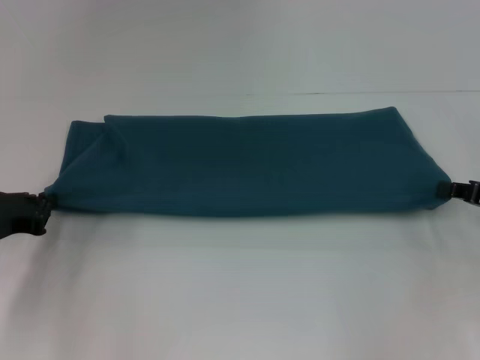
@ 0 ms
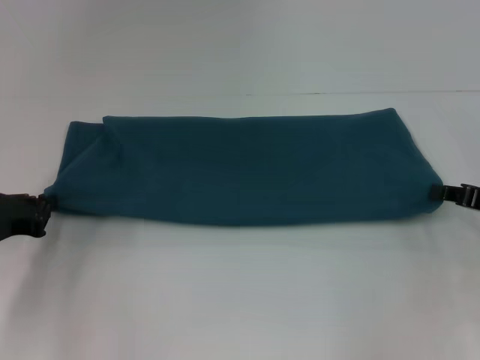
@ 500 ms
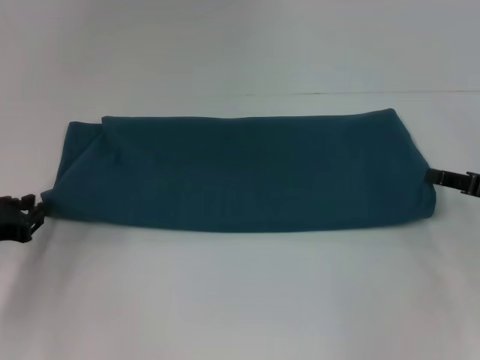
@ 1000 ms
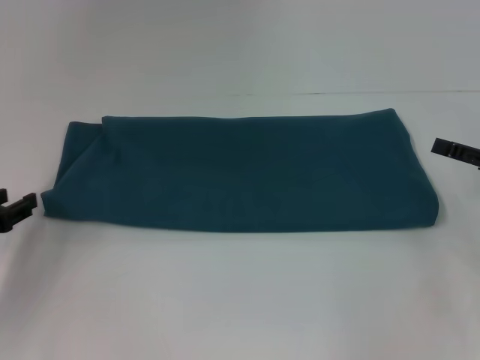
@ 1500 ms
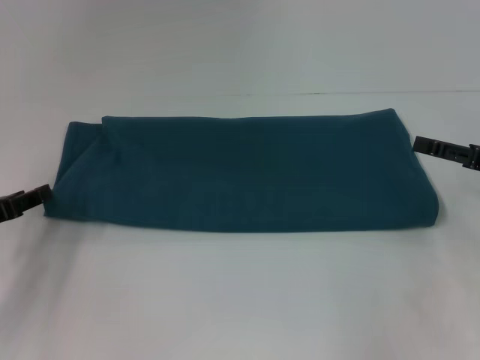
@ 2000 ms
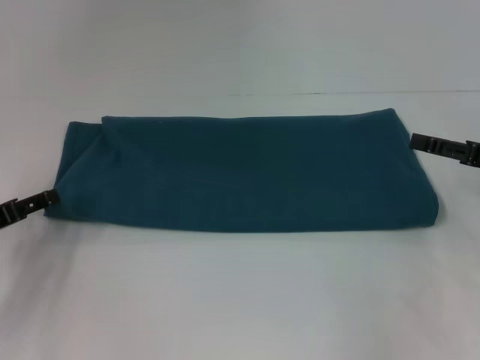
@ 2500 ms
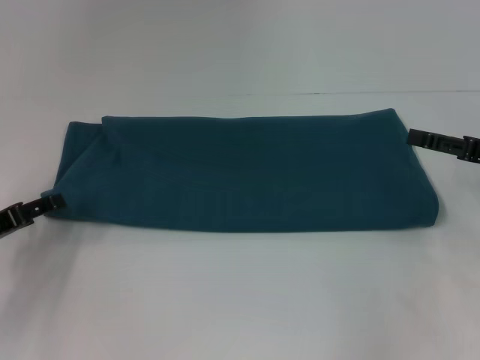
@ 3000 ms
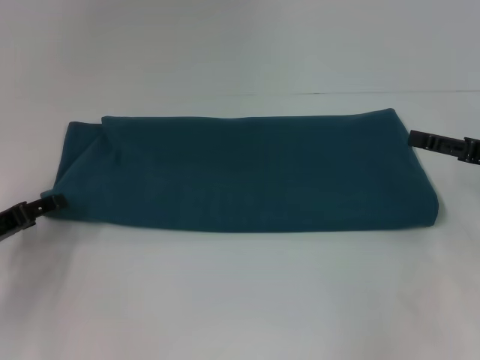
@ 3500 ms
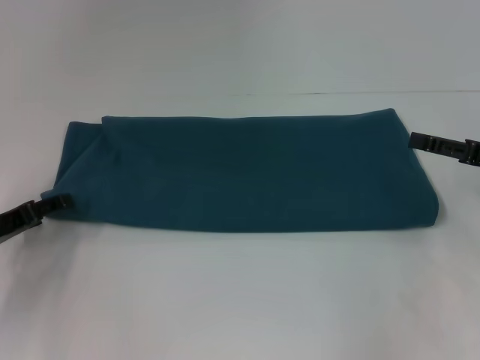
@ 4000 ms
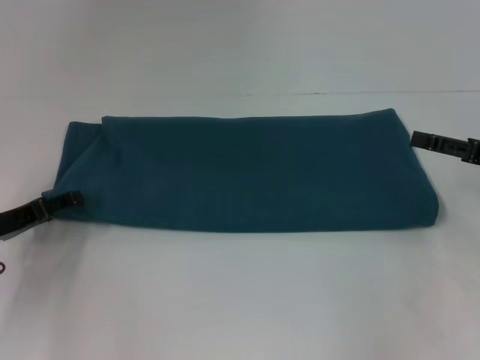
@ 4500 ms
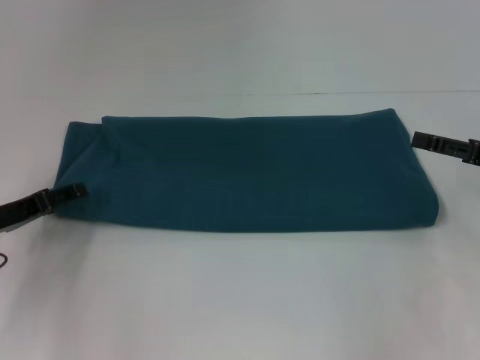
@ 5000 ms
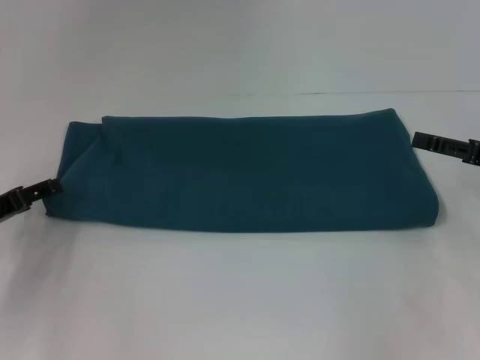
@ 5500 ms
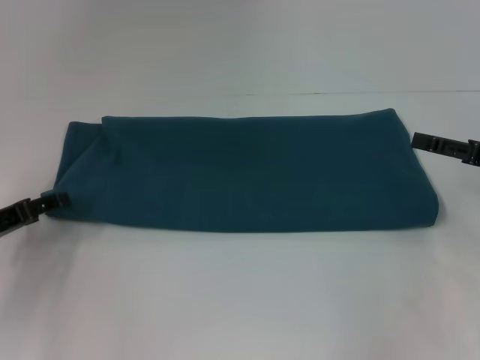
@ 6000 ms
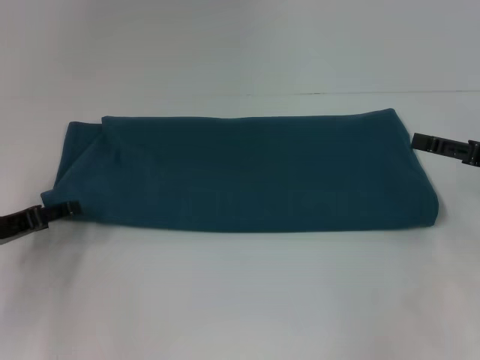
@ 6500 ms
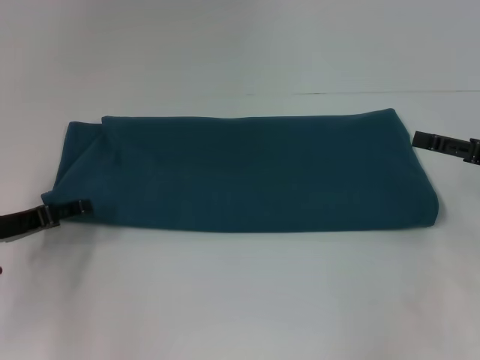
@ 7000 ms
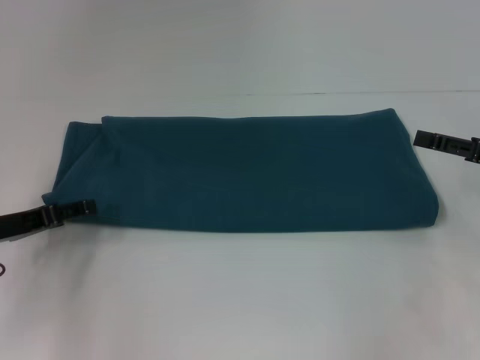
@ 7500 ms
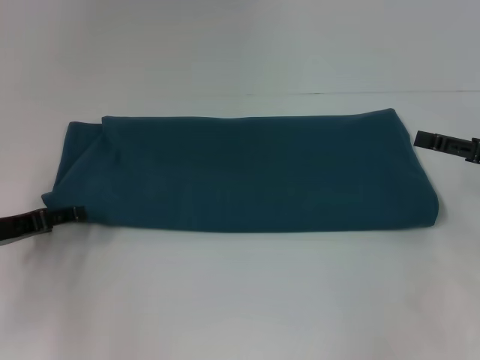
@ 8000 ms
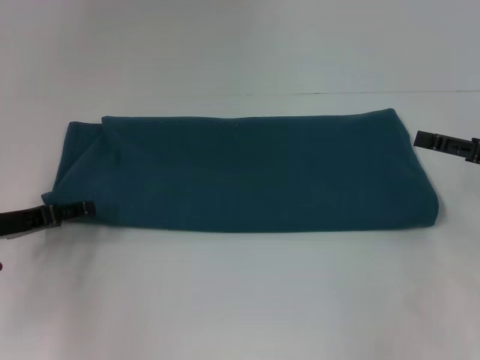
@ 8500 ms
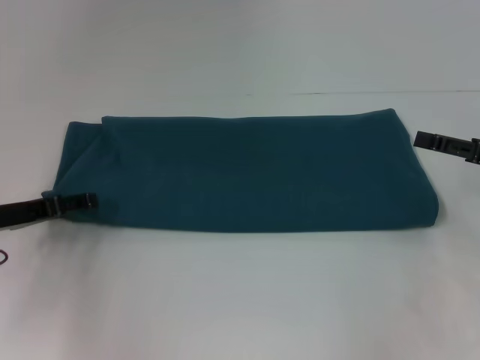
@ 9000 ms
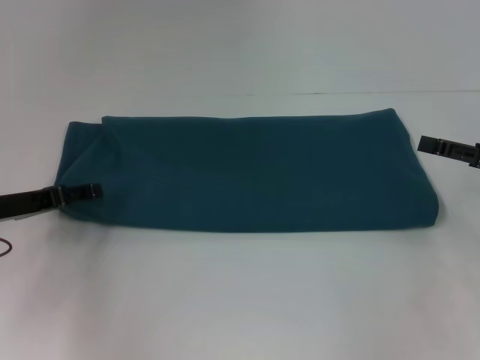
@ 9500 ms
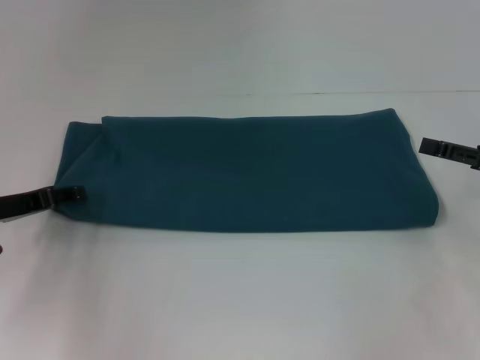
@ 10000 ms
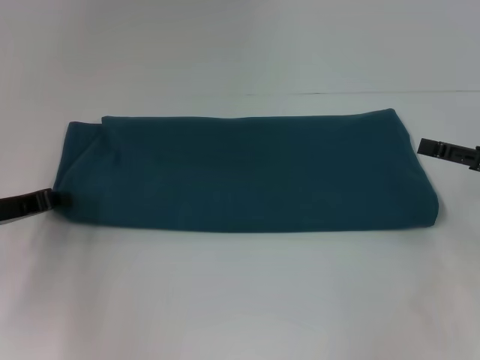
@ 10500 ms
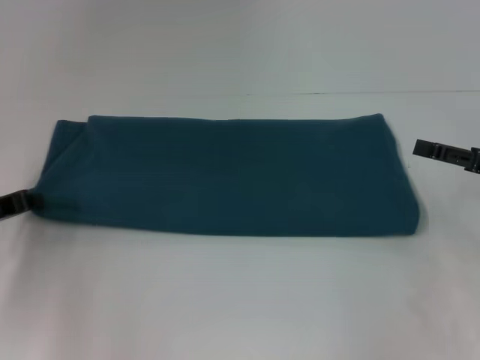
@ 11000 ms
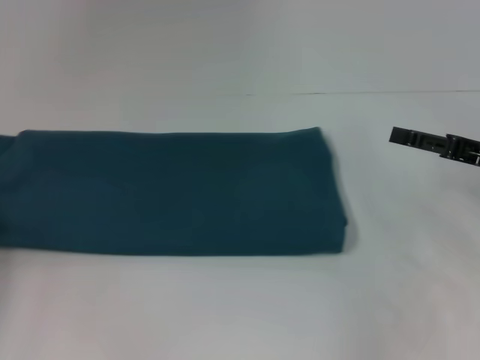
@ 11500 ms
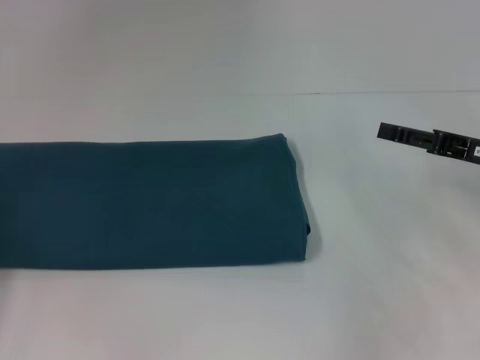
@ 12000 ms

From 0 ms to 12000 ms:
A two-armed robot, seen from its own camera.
From 0 ms to 2000 ms: The left gripper opens its fingers; the right gripper opens its fingers.
From 2000 ms to 4000 ms: There are only small adjustments of the grippers.
From 6000 ms to 10000 ms: The grippers make only small movements.
From 10000 ms to 12000 ms: The left gripper goes roughly 10 cm to the left and backward, and closes.

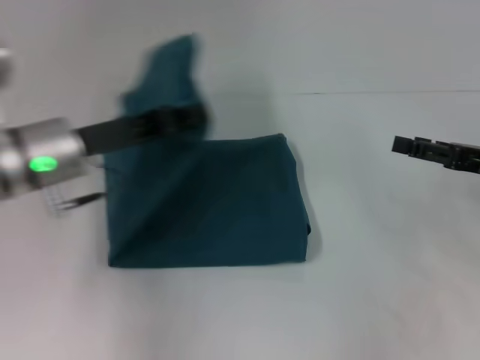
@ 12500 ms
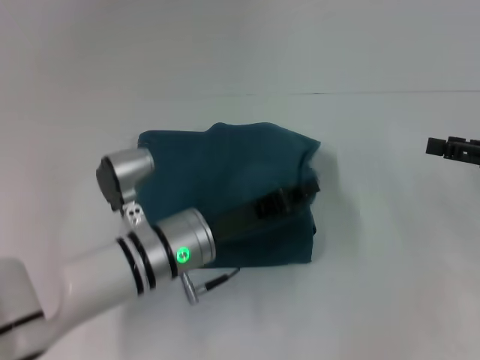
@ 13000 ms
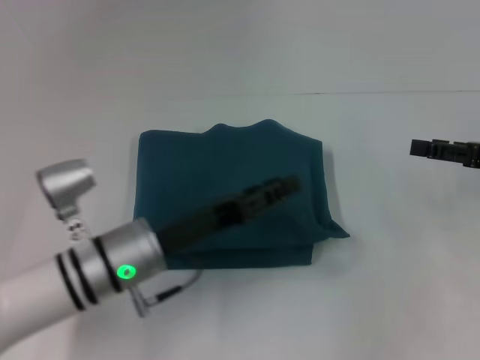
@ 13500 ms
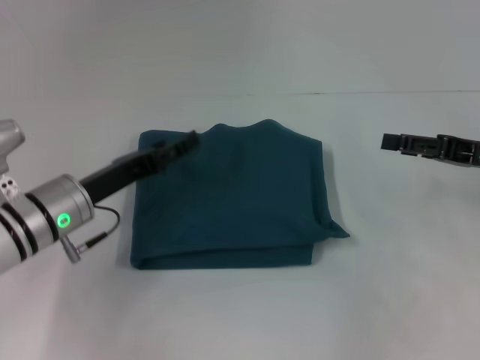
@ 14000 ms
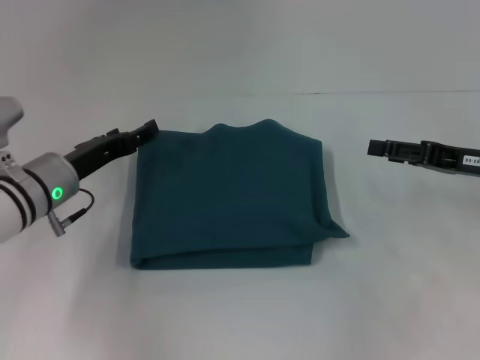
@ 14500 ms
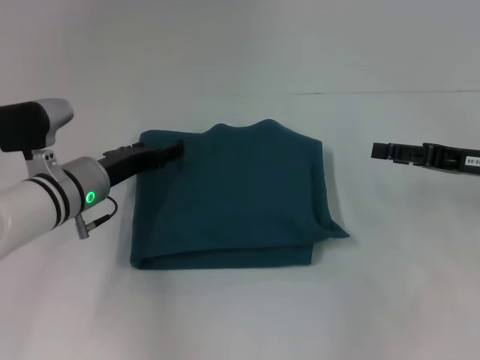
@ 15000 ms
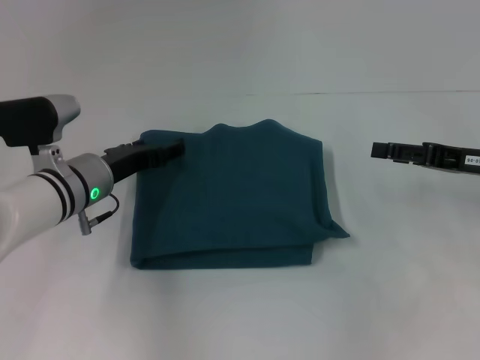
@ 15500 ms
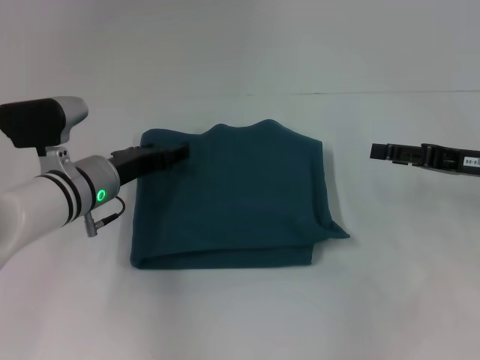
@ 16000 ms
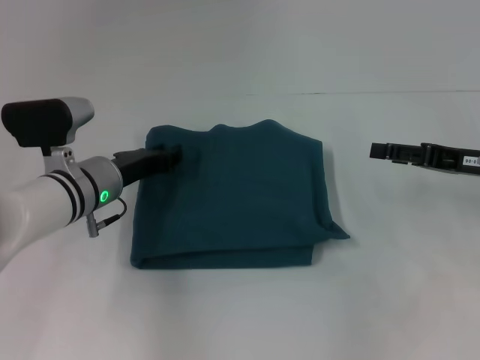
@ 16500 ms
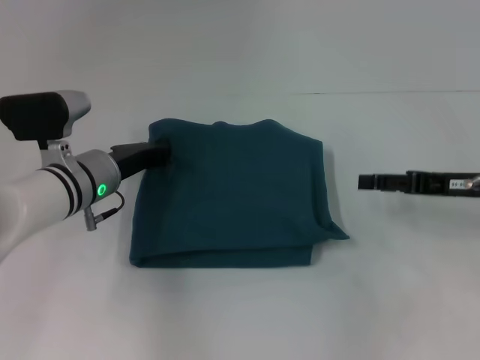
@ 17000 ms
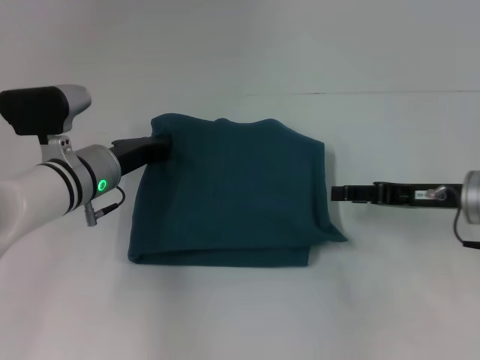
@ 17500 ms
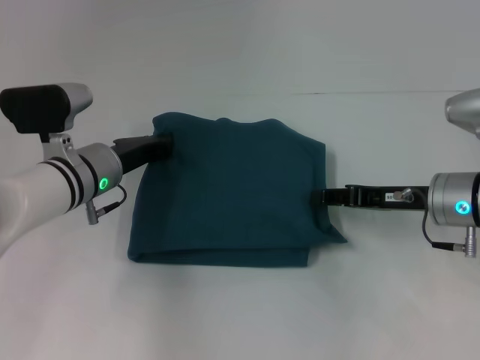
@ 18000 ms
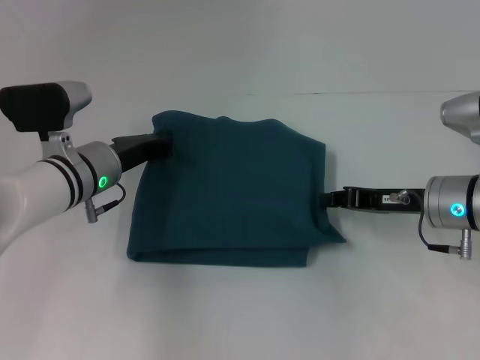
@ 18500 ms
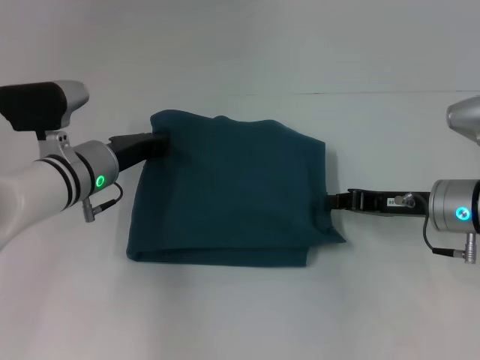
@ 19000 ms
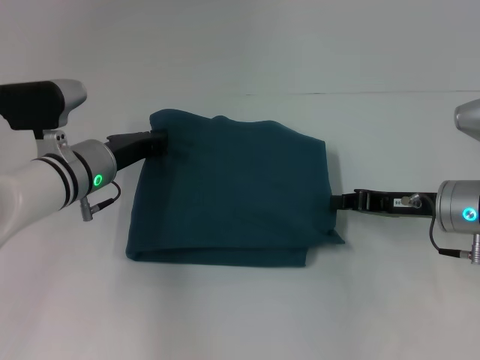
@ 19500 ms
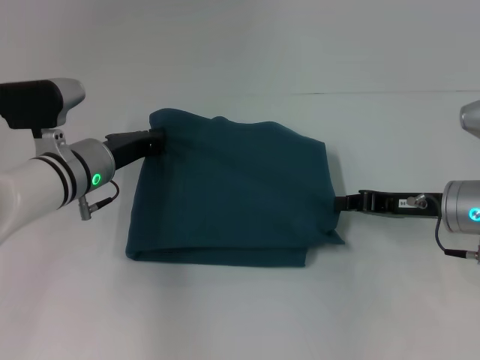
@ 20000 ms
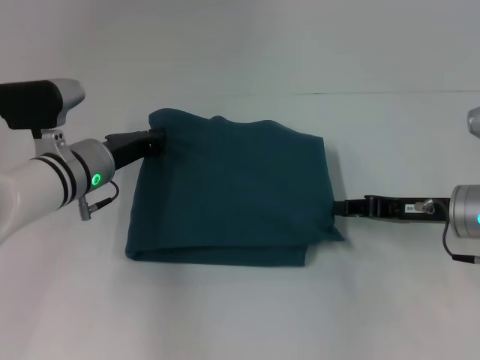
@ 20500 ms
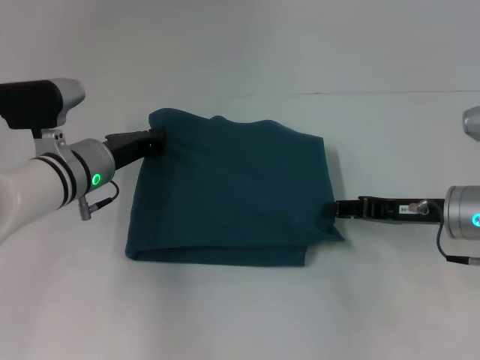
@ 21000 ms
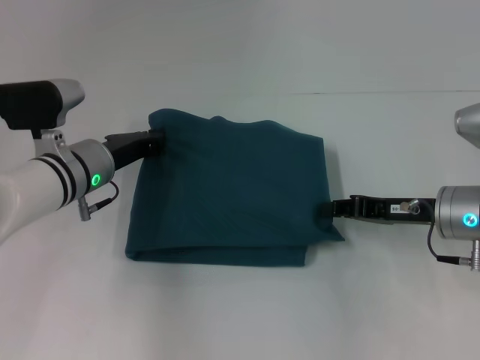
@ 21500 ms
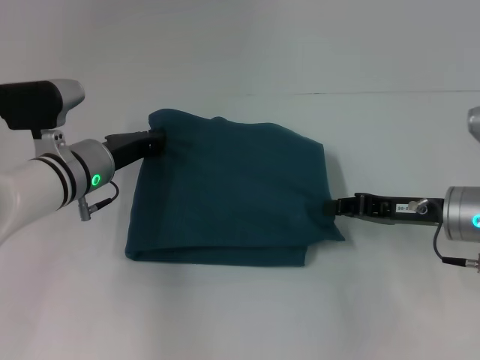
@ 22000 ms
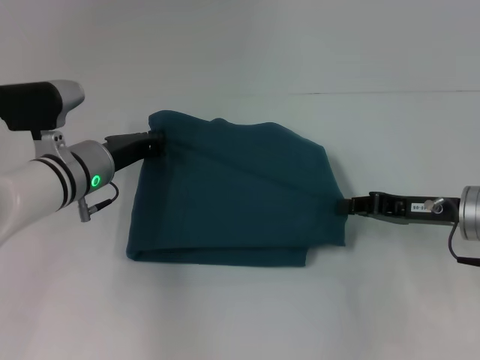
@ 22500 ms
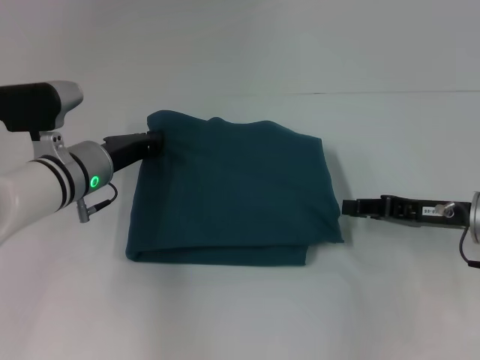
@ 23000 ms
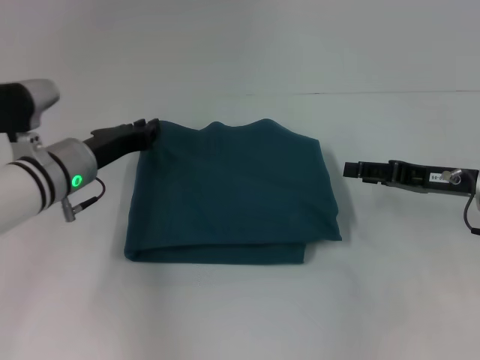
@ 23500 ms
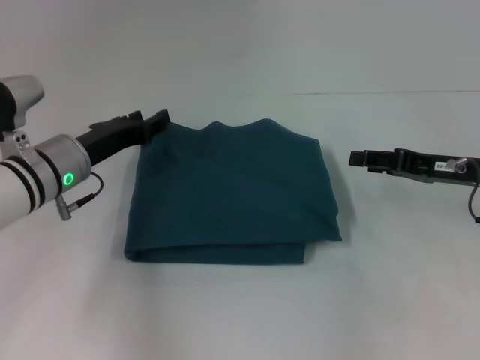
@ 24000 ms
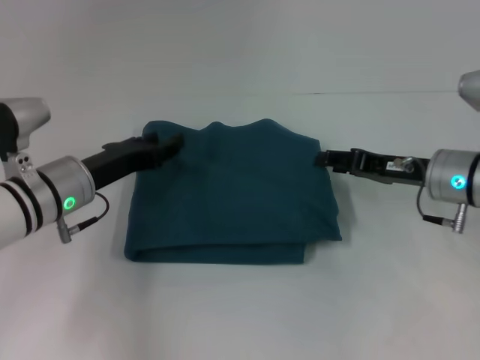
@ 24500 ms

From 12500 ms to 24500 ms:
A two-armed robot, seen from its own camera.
From 12500 ms to 14500 ms: The left gripper heads downward, covering some 10 cm, reaches some 10 cm to the right, then returns, and opens up.
From 14500 ms to 16500 ms: The left gripper closes.
From 16500 ms to 18500 ms: The right gripper goes approximately 5 cm to the left, and closes its fingers. Meanwhile the left gripper closes up.
From 18500 ms to 22500 ms: There are only small adjustments of the grippers.
From 22500 ms to 24500 ms: The right gripper opens up. The left gripper opens.

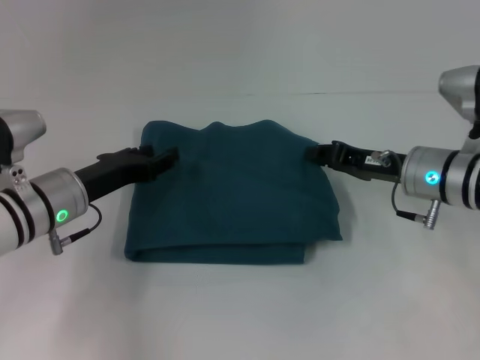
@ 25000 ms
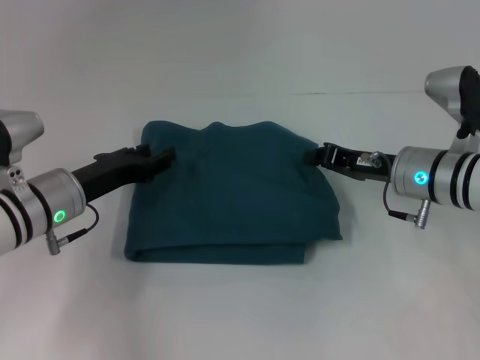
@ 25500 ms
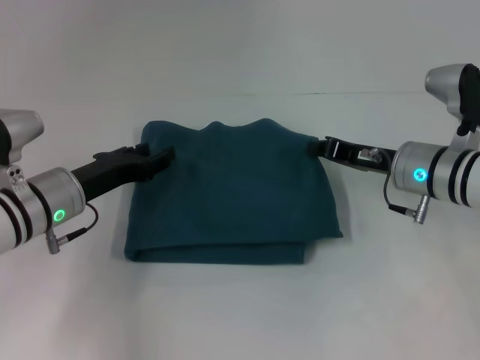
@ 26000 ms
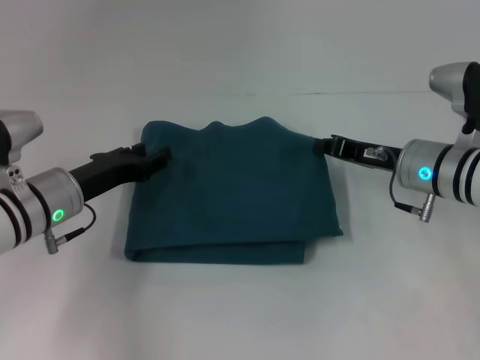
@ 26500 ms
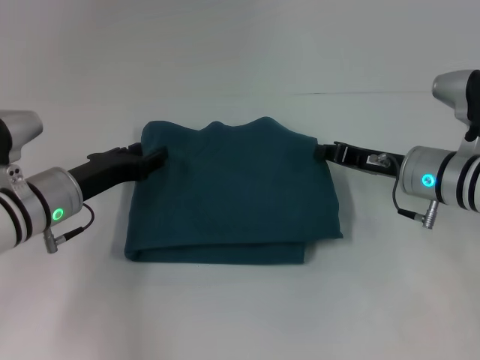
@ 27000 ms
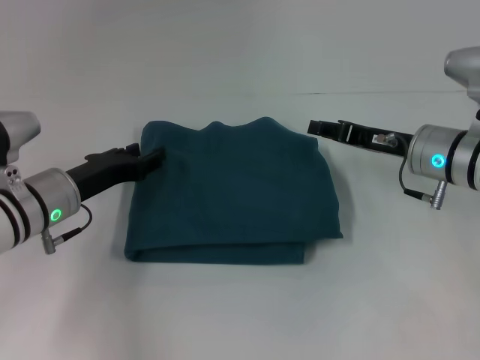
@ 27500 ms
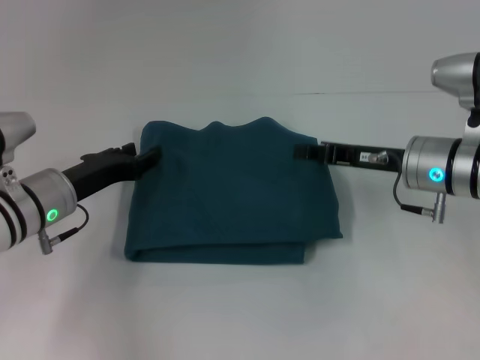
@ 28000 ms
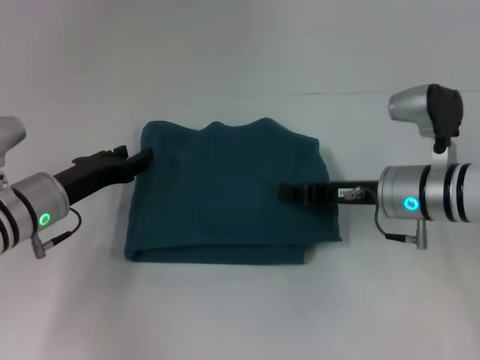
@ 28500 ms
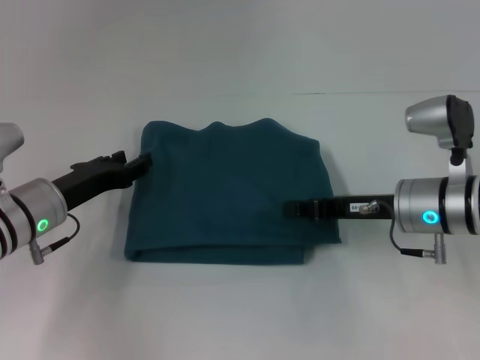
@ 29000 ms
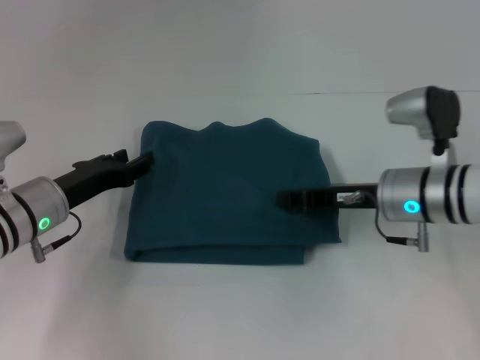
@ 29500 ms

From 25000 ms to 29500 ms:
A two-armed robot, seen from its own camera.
From 25000 ms to 27000 ms: The right gripper closes.
